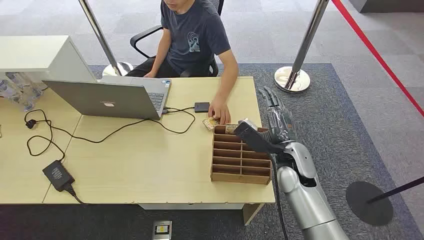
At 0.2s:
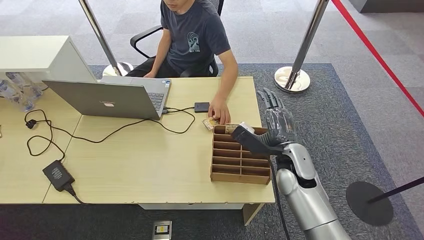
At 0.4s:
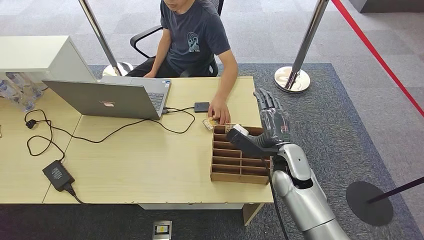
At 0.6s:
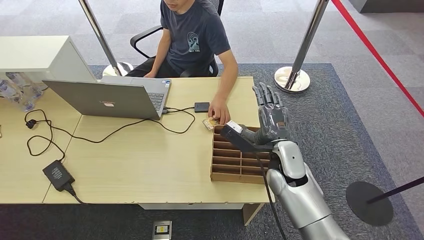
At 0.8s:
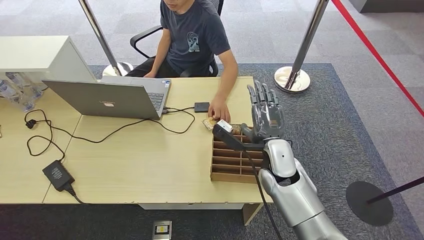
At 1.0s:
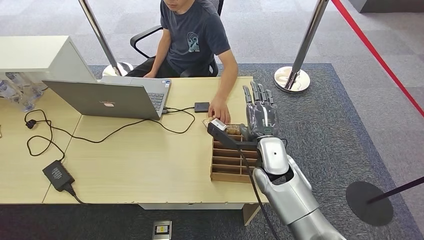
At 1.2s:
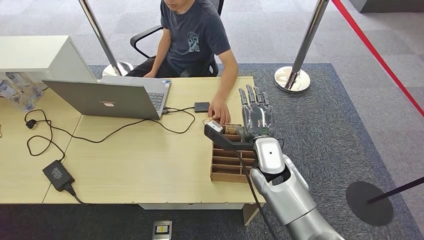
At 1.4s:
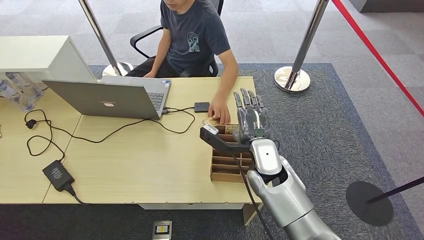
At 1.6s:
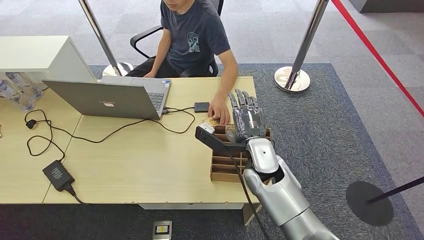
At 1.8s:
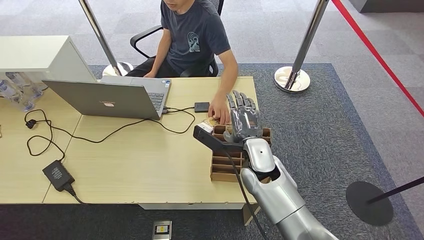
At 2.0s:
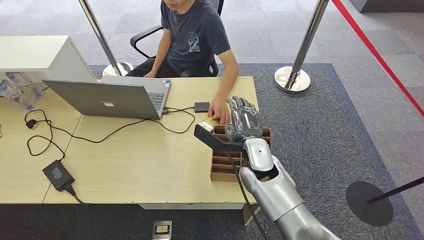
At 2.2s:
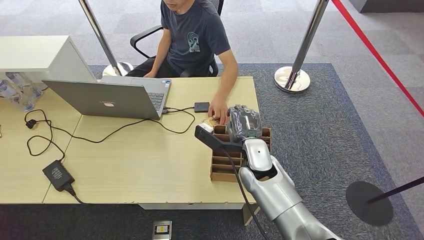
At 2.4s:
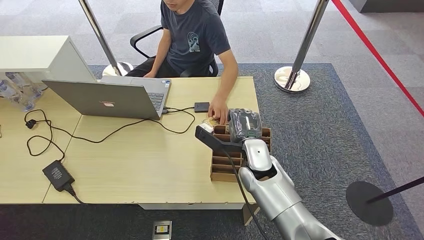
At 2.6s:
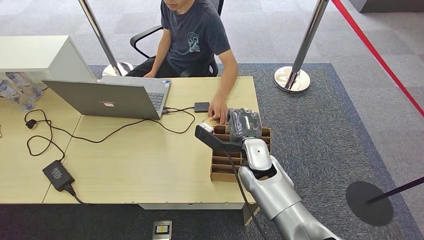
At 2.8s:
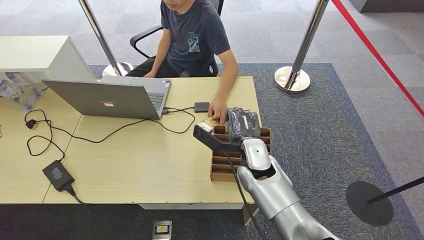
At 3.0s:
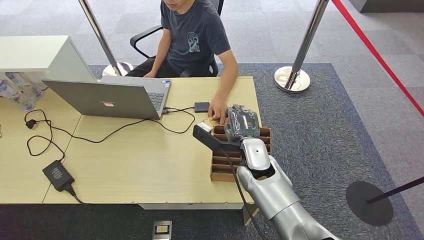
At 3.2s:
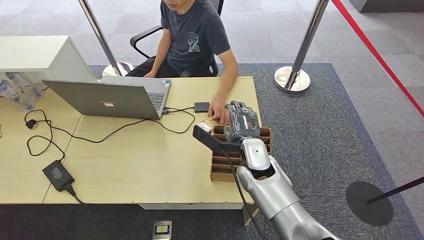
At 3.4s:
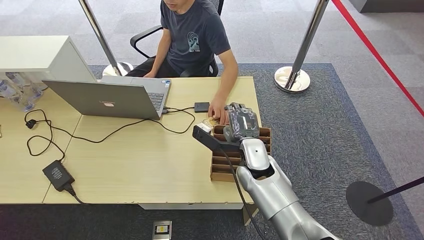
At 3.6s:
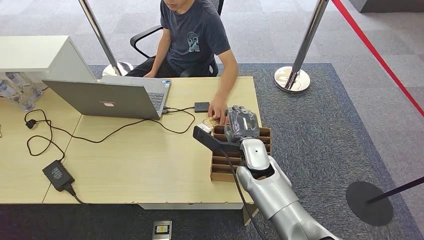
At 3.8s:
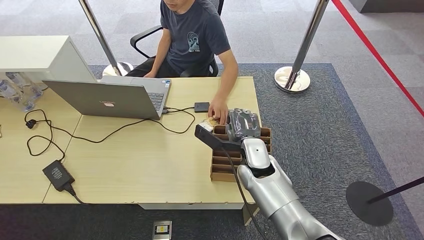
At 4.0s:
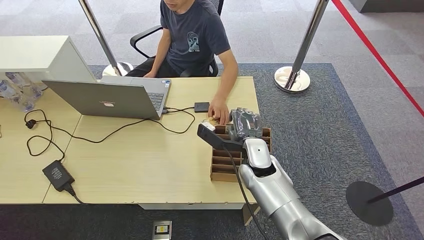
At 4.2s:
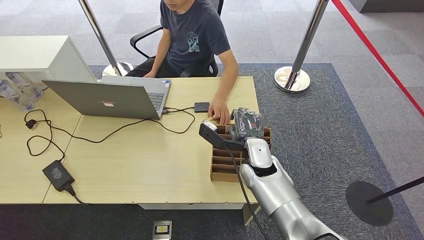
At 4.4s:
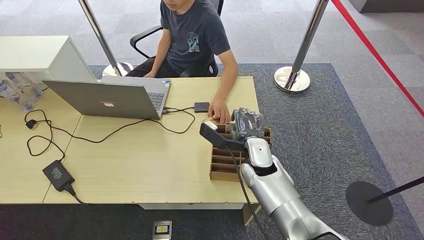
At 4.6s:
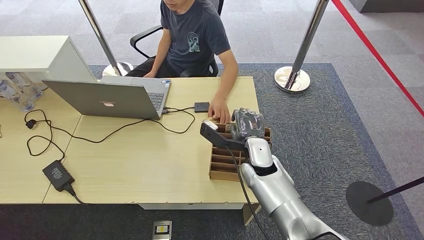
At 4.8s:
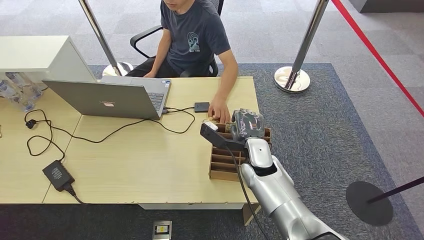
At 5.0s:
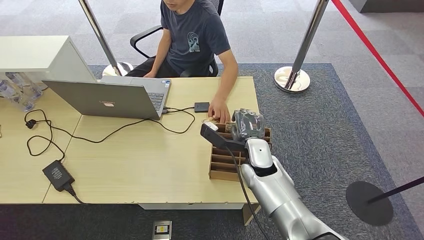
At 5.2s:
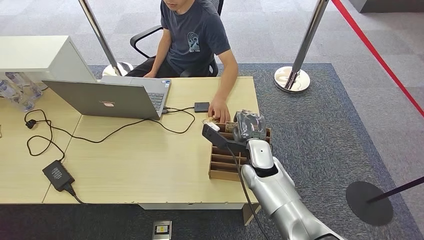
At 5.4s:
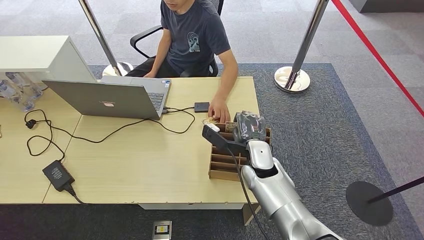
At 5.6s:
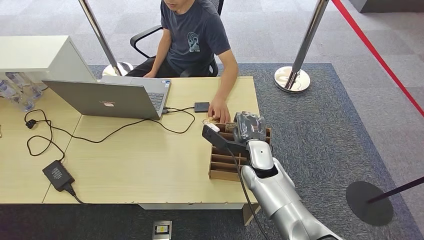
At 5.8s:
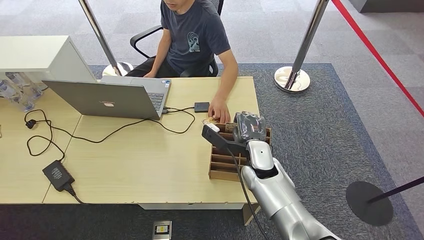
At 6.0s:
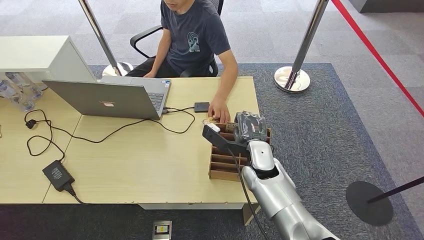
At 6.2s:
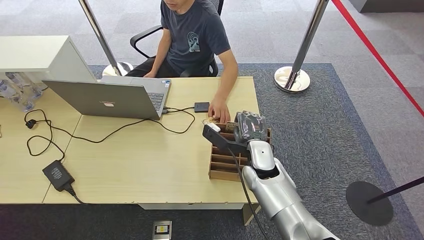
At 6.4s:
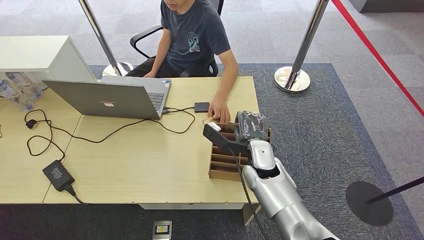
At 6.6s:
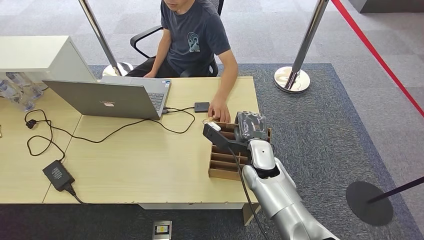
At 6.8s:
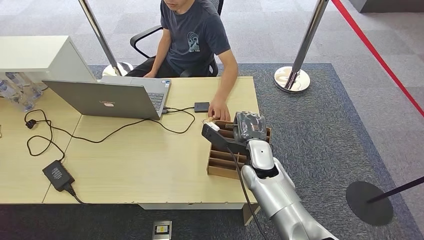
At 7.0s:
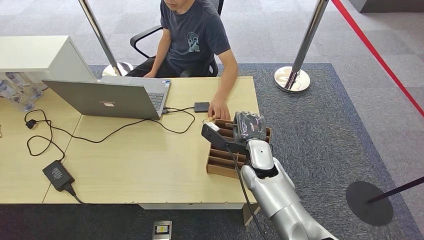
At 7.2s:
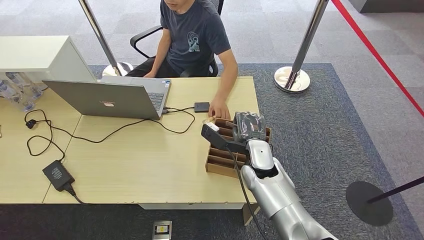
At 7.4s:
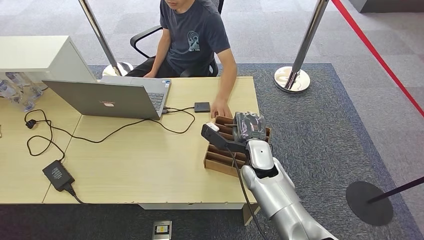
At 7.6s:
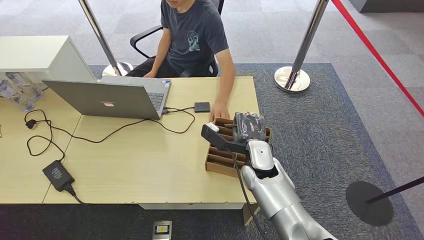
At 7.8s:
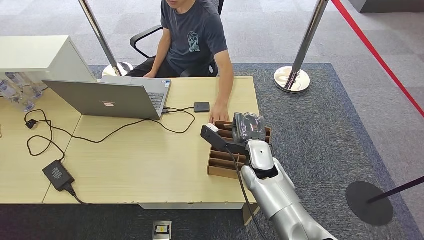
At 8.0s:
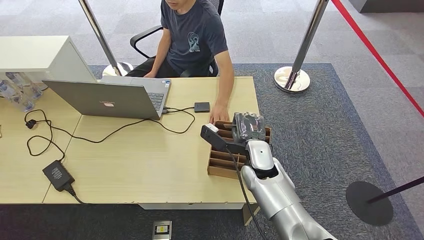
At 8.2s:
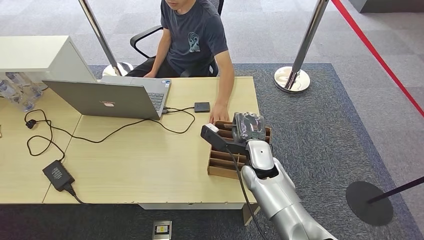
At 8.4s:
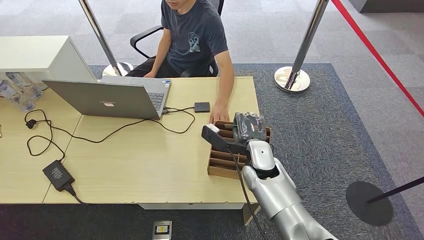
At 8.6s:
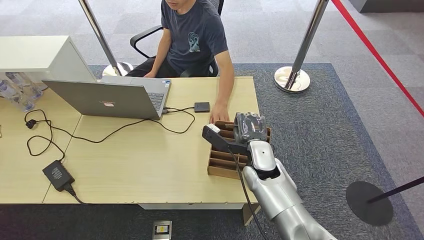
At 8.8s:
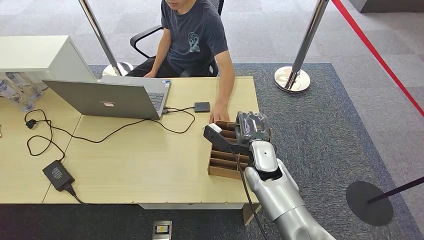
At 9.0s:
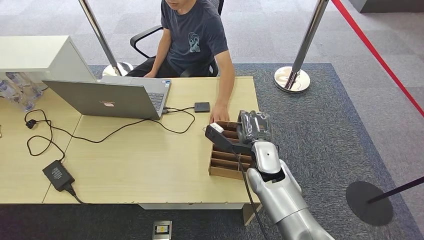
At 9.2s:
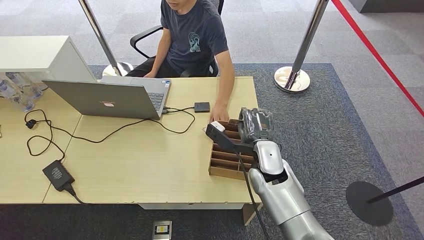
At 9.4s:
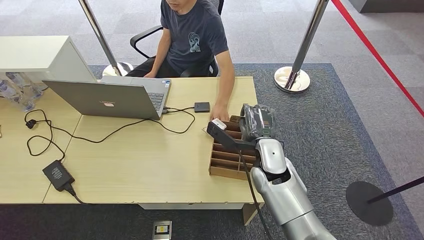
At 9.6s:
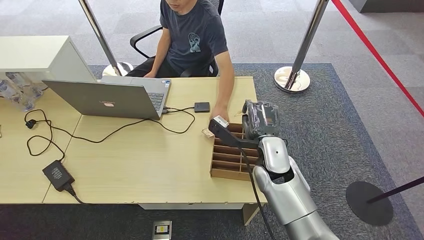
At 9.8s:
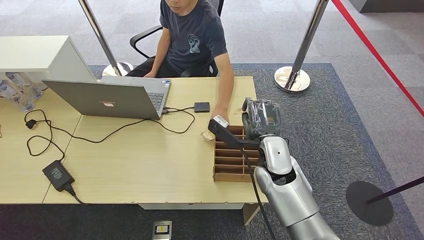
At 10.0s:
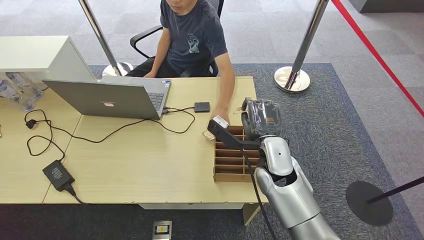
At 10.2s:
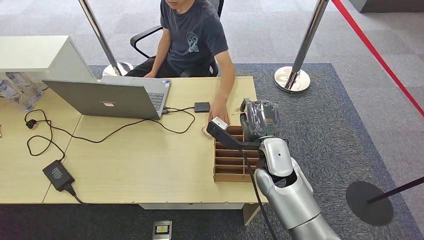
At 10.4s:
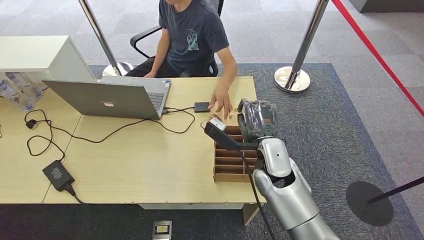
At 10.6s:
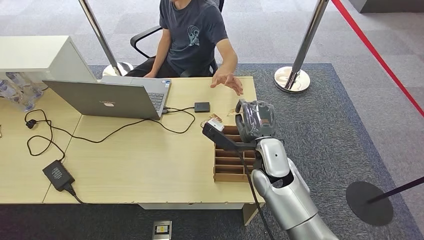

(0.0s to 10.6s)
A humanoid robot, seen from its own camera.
Step, 0.0s - 9.0s: Pick up the key card from the card box.
Step, 9.2s - 10.6s: Hand the key card to the target.
1.6s - 4.6s: The hands move only a little.
4.6s - 7.6s: Both hands stay put.
7.6s - 10.6s: The hands move only a little.
